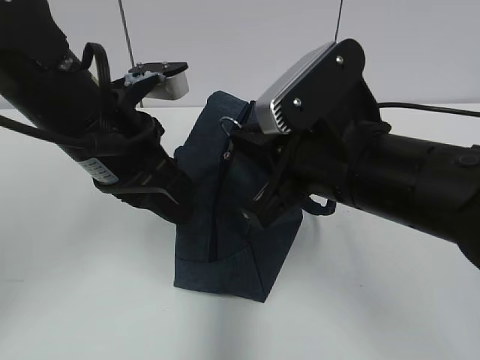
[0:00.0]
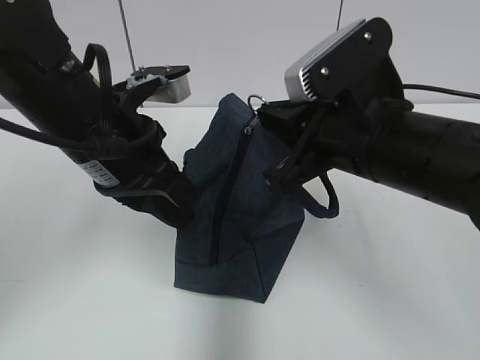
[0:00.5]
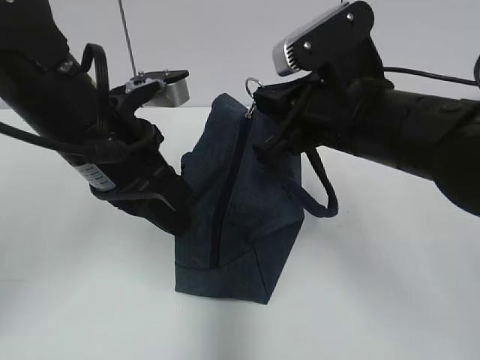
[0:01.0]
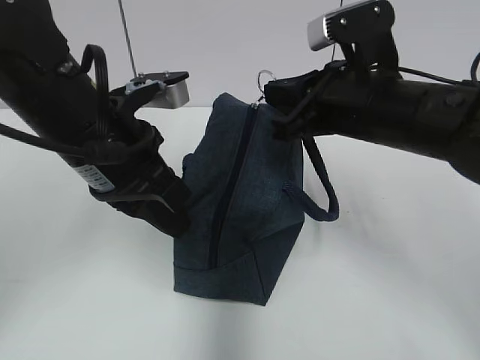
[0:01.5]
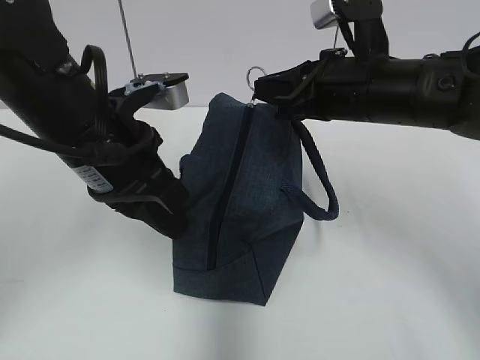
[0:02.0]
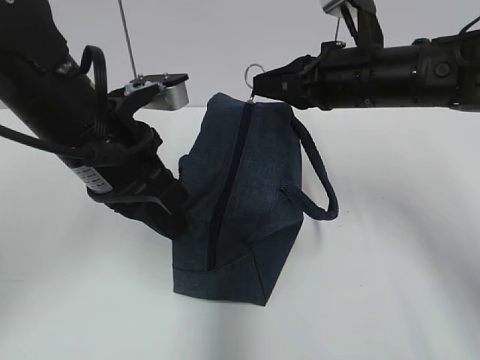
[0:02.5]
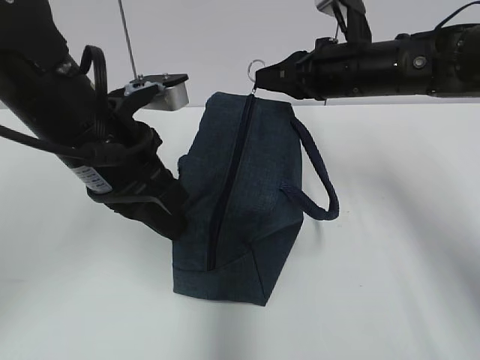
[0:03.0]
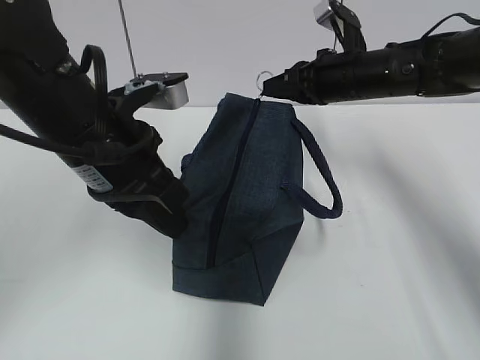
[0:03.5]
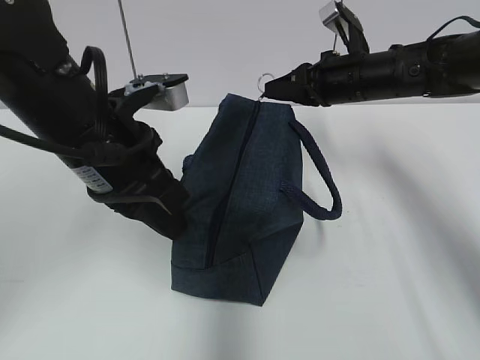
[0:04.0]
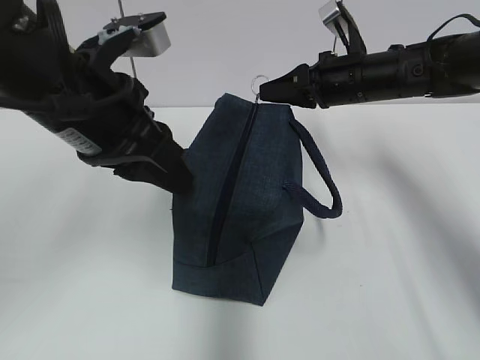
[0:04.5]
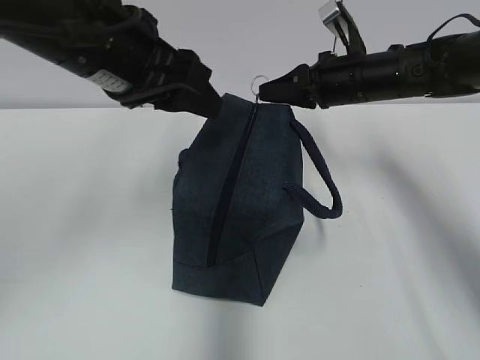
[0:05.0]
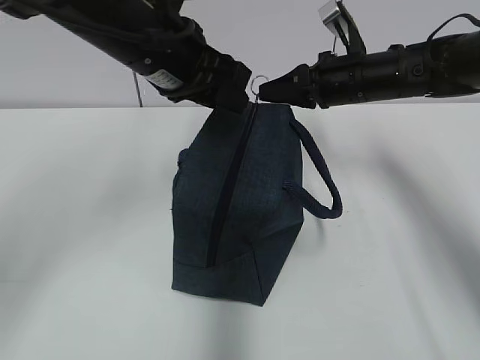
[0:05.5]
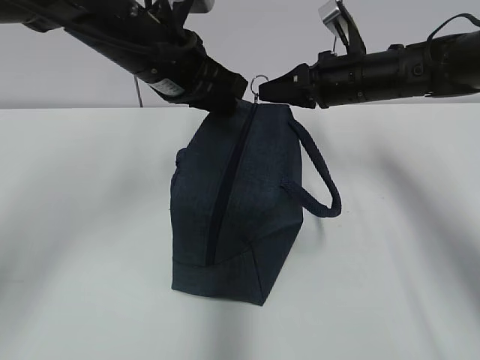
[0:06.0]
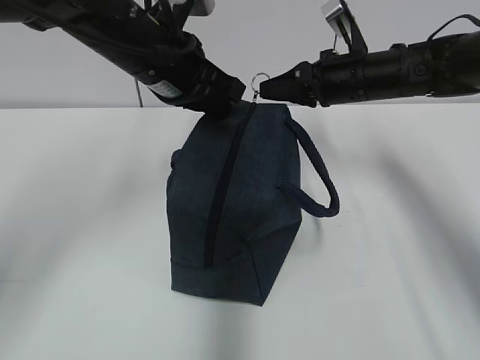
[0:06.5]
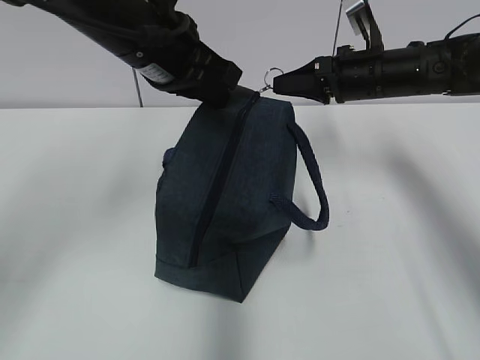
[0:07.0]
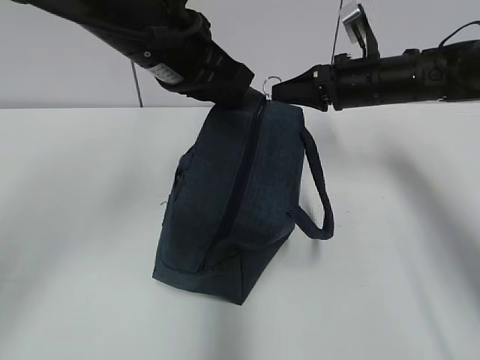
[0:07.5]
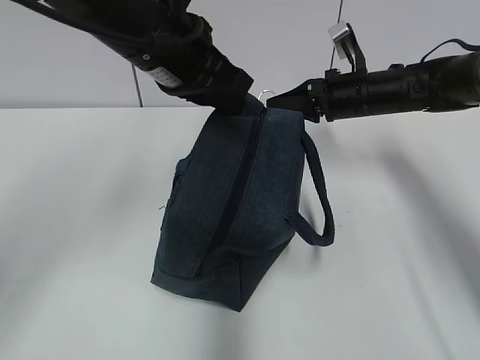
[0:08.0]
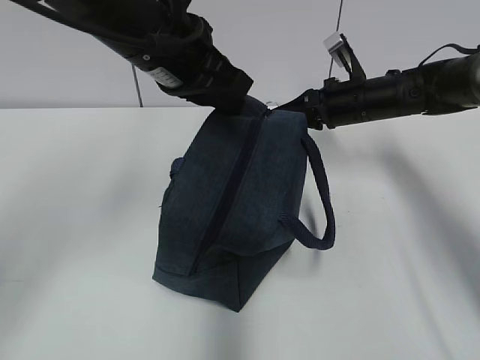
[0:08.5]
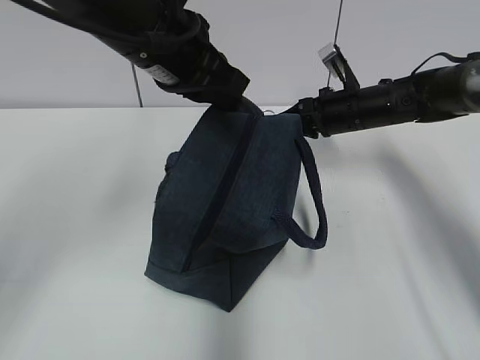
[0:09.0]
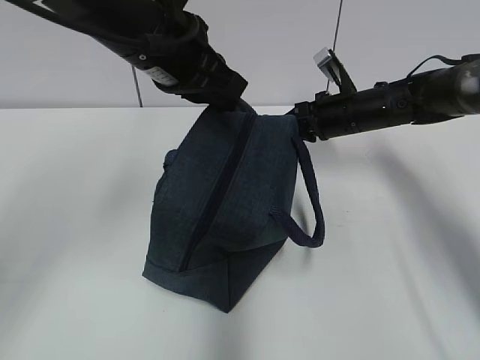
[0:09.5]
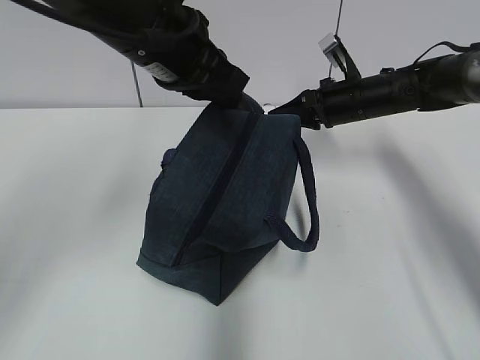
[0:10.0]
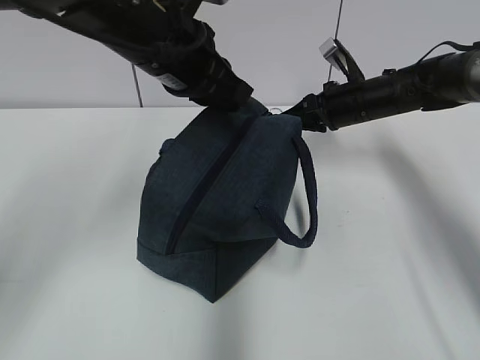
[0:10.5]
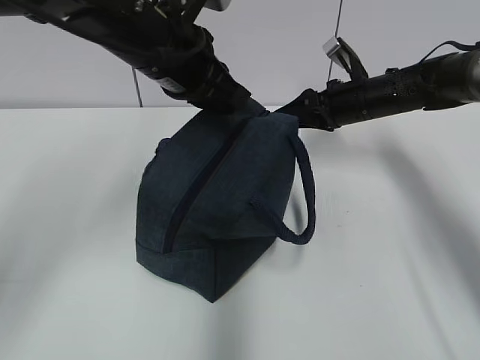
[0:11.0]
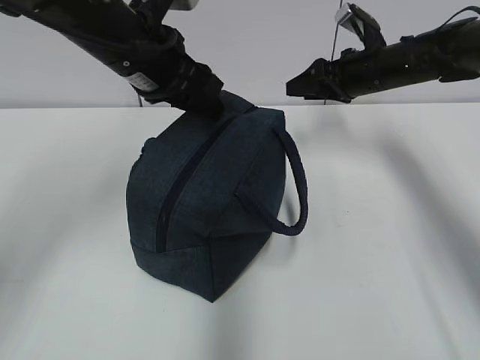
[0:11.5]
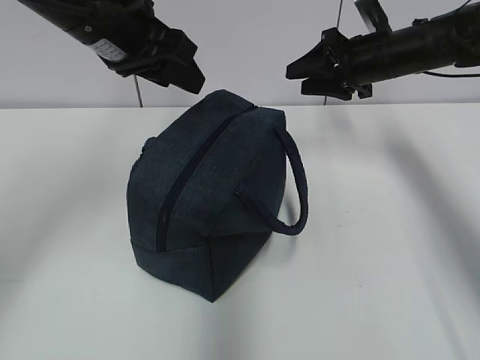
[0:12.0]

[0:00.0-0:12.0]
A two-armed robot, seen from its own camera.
Step, 0:05.0 to 0:10.5: Pull the zipper with your right hand.
Step, 0:11.0 to 0:11.5: Grab the lunch bag with your left hand.
0:00.0 to 0:02.0: The right gripper travels forward and to the right by some 10 cm.
0:02.0 to 0:04.0: The right gripper goes roughly 10 cm forward.
0:04.0 to 0:06.0: The left gripper goes some 10 cm forward, and opens and closes again.
0:06.0 to 0:08.0: The grippers move only a little.
0:08.0 to 0:10.0: The grippers make only small movements.
0:10.0 to 0:12.0: The right gripper heads upward, covering about 5 cm, and opens its fingers. The left gripper moves about 5 cm, and opens its fingers.

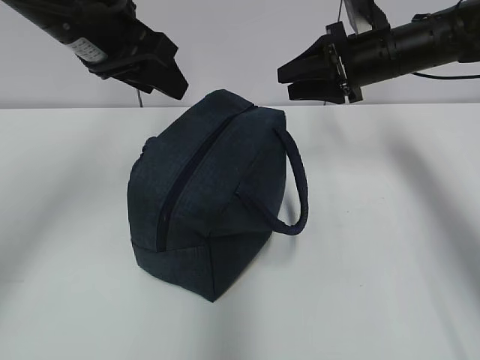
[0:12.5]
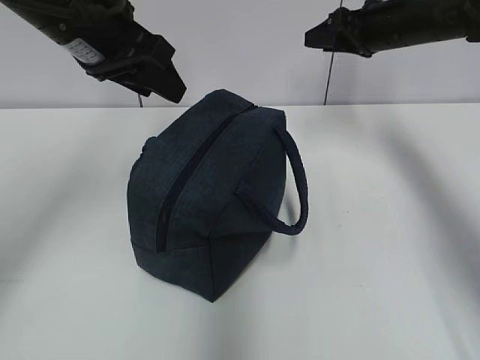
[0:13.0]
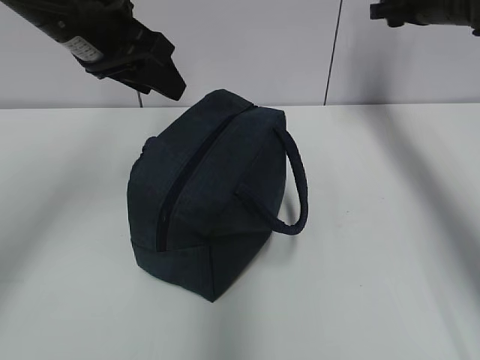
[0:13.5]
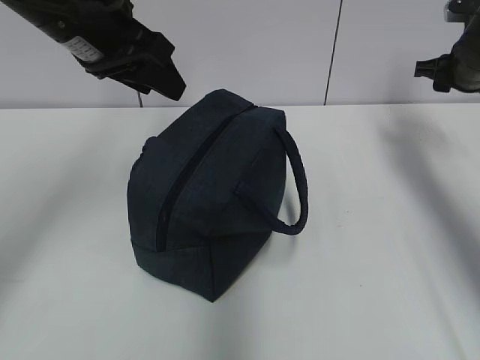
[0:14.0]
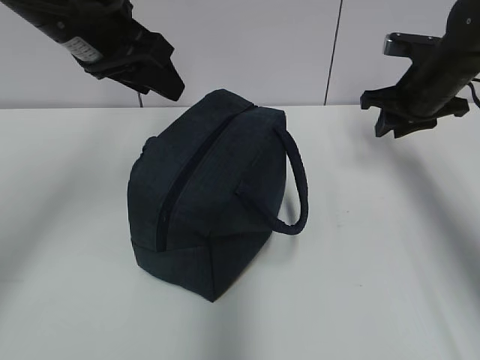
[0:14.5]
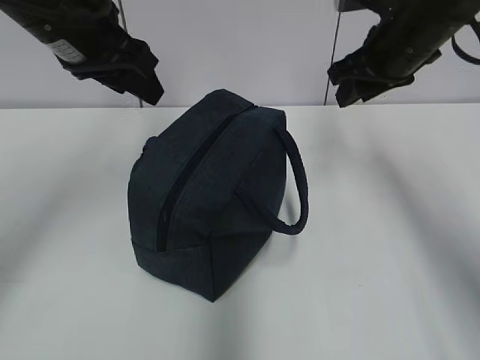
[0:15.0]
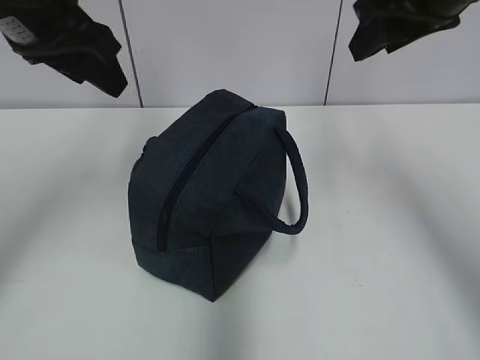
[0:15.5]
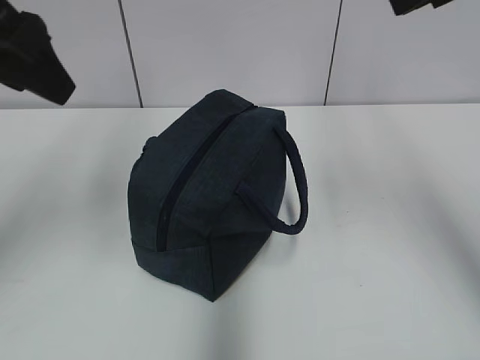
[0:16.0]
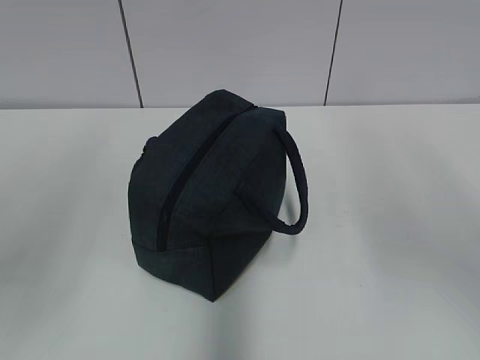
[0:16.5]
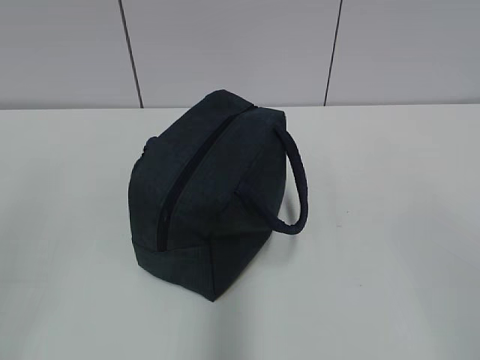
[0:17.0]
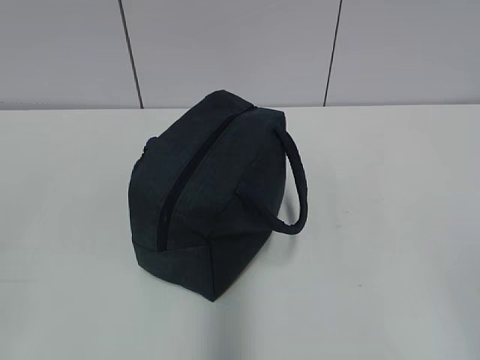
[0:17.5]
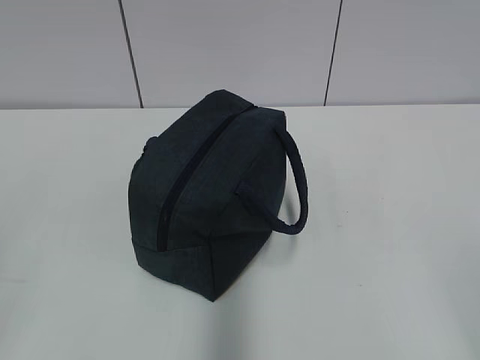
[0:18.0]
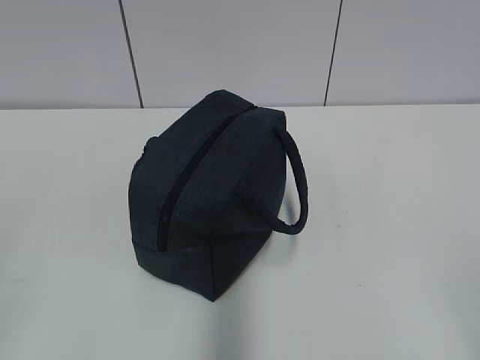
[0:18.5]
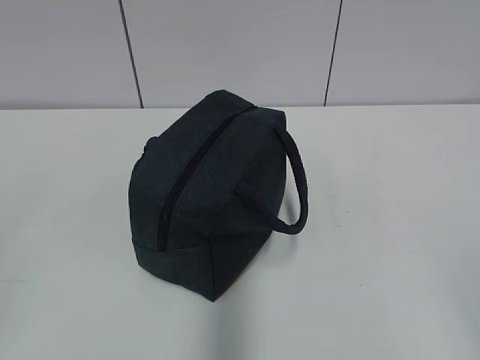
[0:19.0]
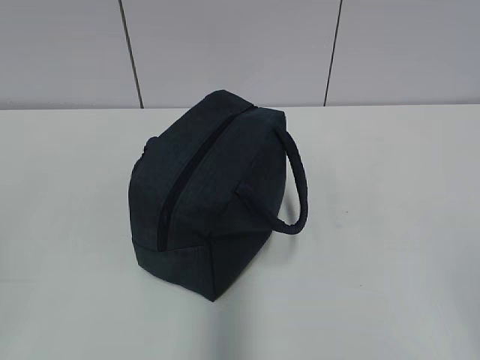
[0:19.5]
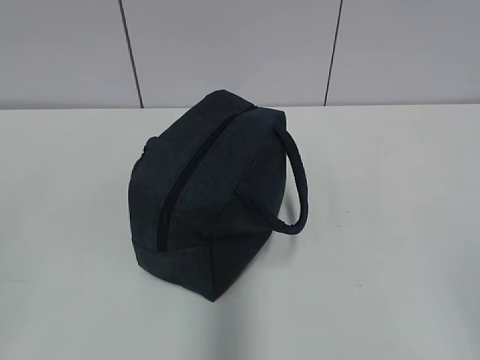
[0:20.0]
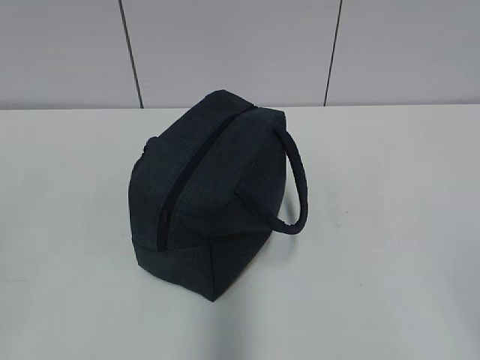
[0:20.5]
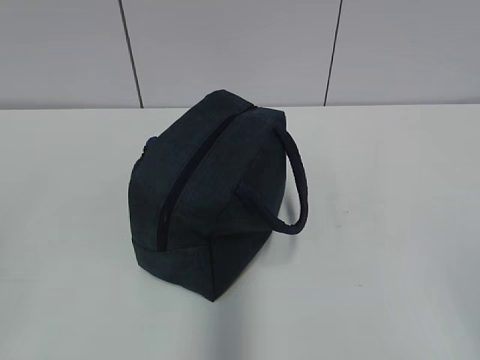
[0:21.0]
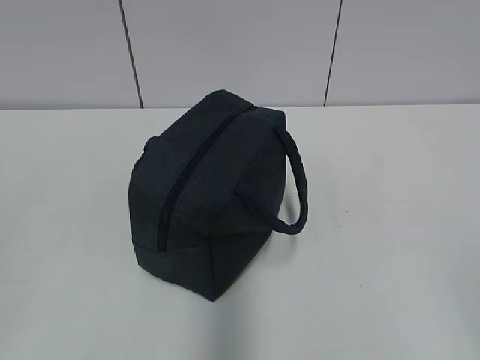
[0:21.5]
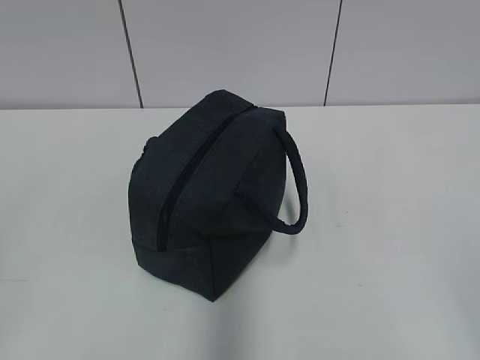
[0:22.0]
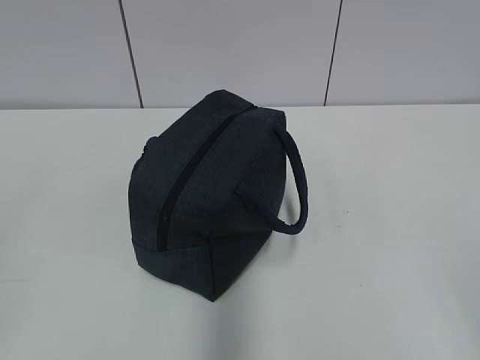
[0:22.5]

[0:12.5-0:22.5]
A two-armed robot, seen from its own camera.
0:12.5 to 0:14.5: The right gripper heads to the right, covering some 5 cm.
0:14.5 to 0:16.5: The right gripper is displaced backward and upward by some 35 cm; the left gripper moves backward and to the left, approximately 25 cm.
0:16.5 to 0:18.5: The left gripper shifts roughly 20 cm backward, downward and to the left; the right gripper travels backward and downward by about 25 cm.
0:20.5 to 0:22.5: The two grippers keep their place.
